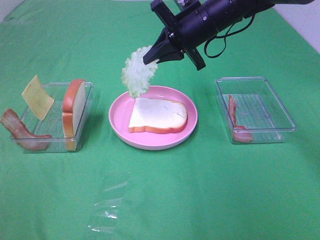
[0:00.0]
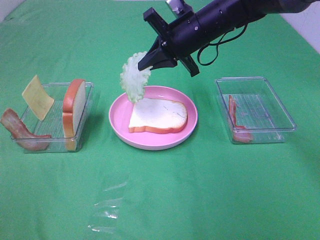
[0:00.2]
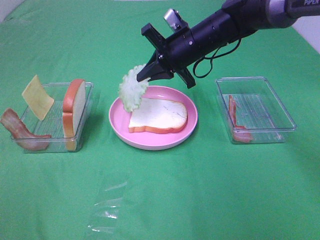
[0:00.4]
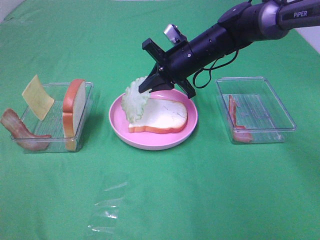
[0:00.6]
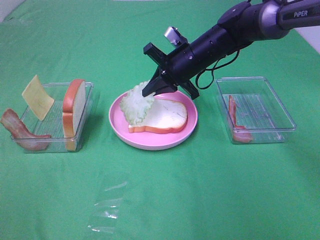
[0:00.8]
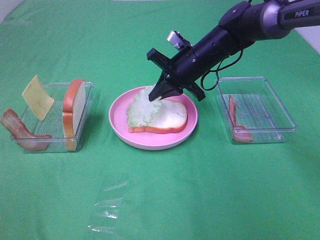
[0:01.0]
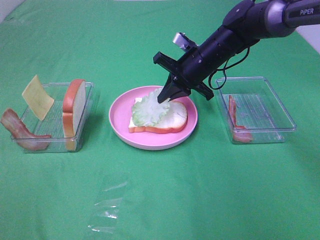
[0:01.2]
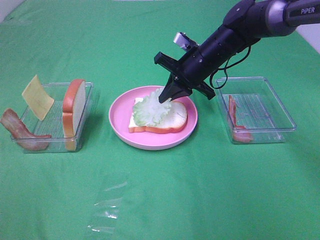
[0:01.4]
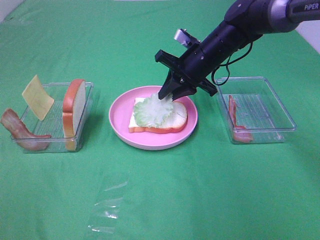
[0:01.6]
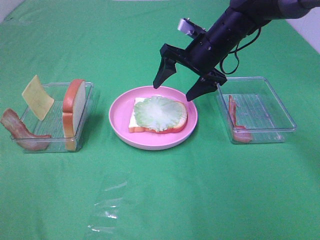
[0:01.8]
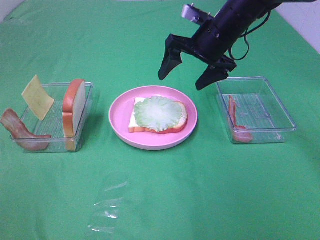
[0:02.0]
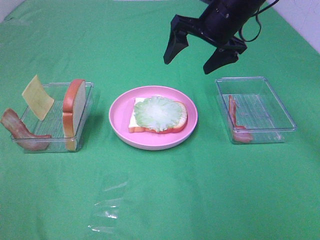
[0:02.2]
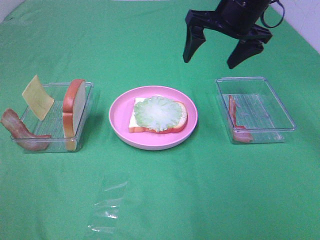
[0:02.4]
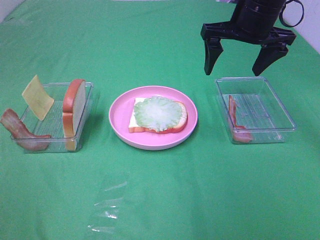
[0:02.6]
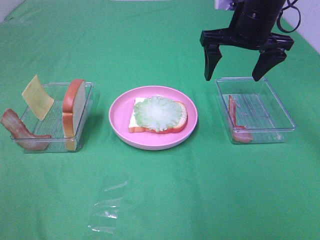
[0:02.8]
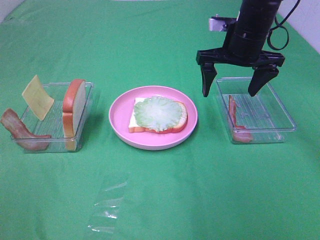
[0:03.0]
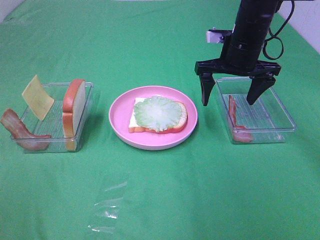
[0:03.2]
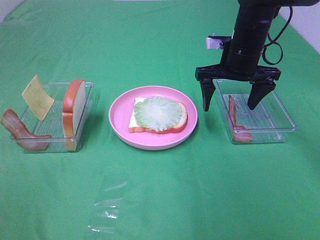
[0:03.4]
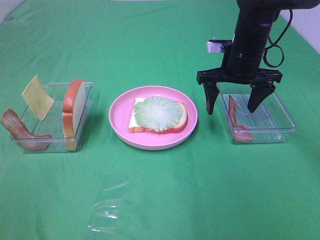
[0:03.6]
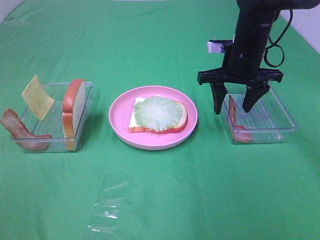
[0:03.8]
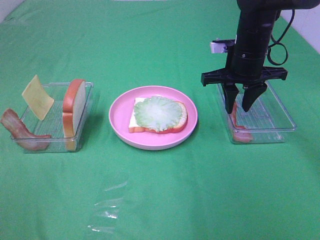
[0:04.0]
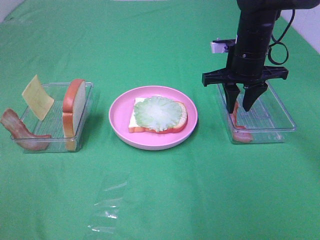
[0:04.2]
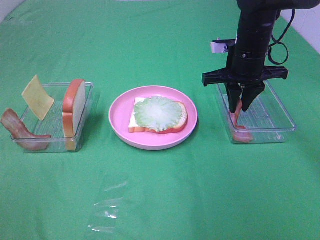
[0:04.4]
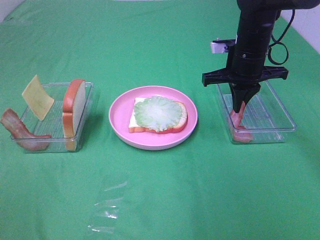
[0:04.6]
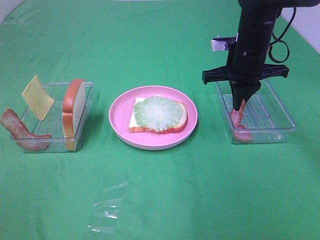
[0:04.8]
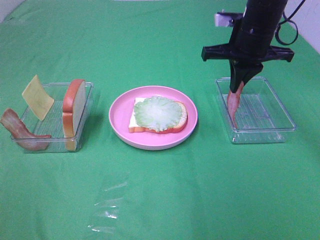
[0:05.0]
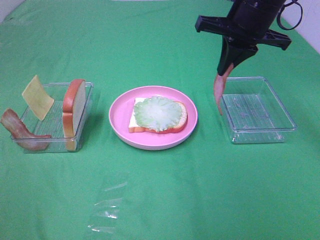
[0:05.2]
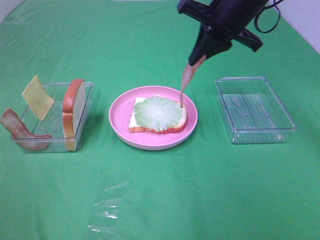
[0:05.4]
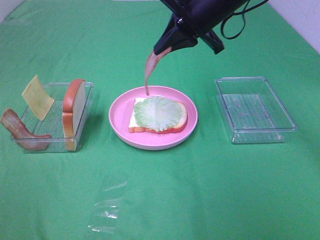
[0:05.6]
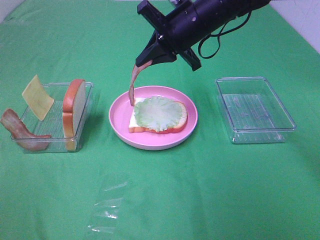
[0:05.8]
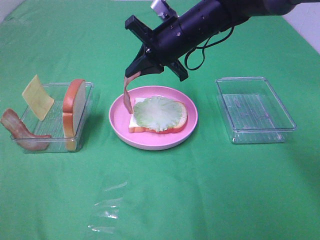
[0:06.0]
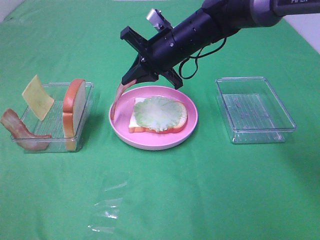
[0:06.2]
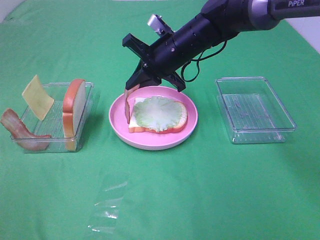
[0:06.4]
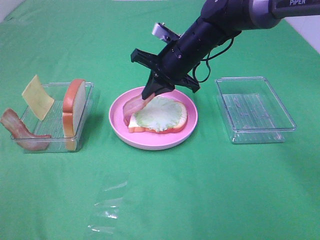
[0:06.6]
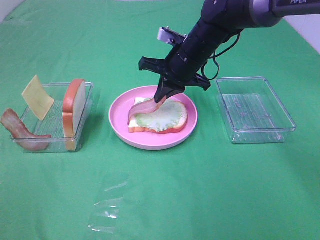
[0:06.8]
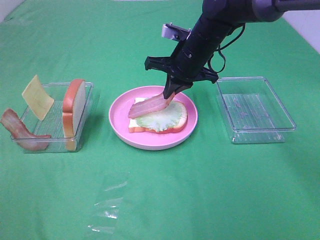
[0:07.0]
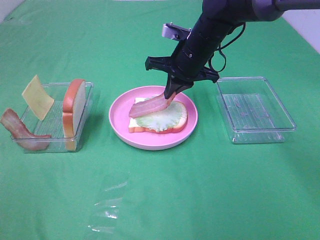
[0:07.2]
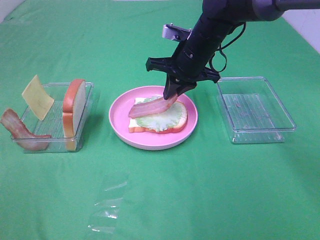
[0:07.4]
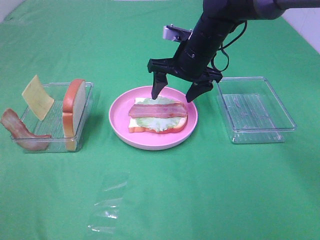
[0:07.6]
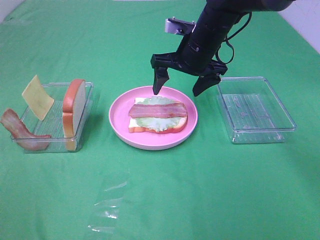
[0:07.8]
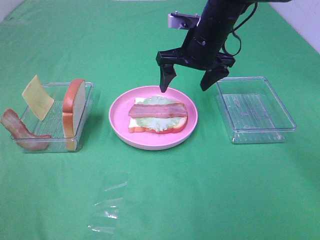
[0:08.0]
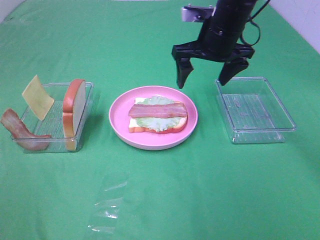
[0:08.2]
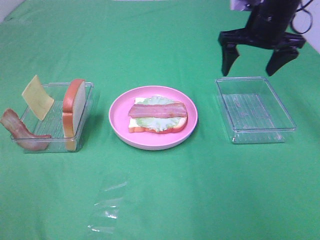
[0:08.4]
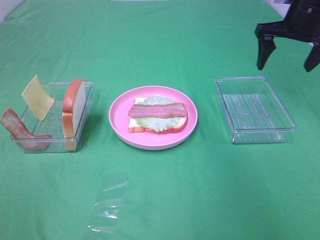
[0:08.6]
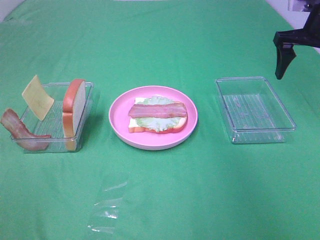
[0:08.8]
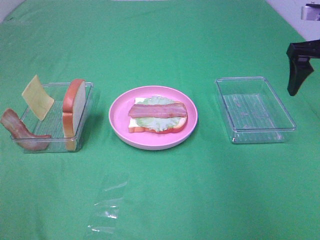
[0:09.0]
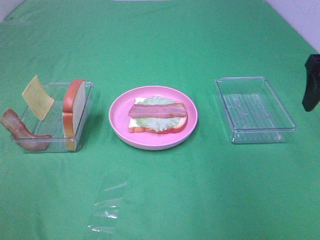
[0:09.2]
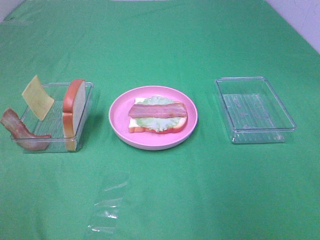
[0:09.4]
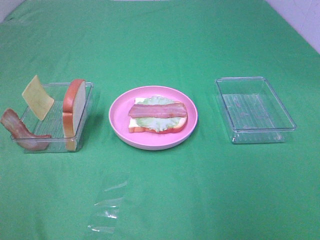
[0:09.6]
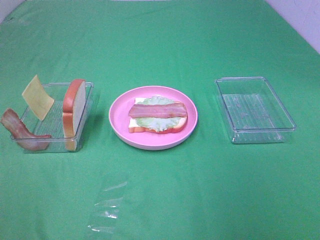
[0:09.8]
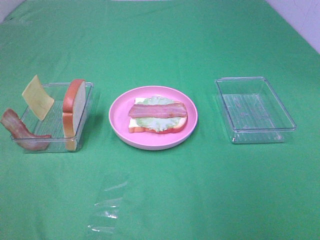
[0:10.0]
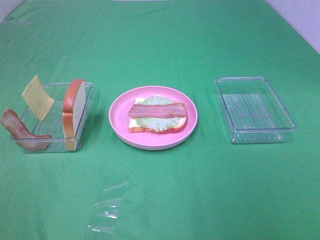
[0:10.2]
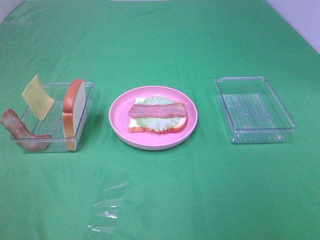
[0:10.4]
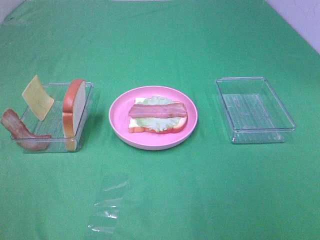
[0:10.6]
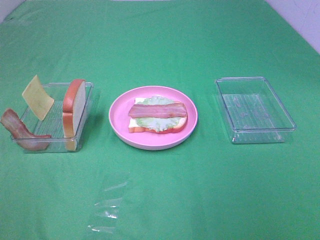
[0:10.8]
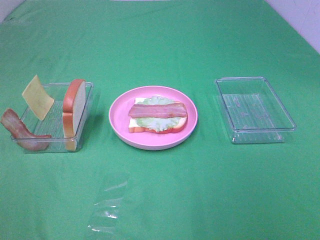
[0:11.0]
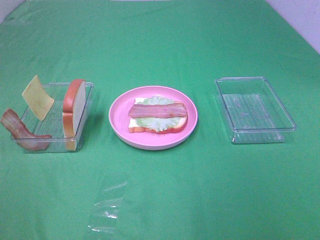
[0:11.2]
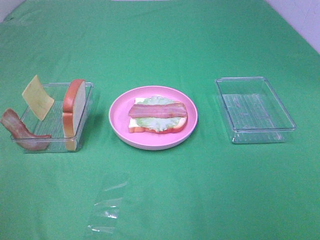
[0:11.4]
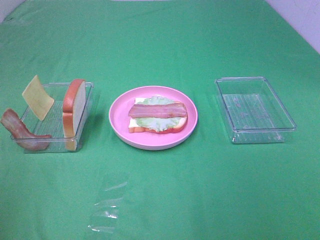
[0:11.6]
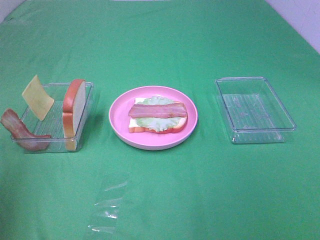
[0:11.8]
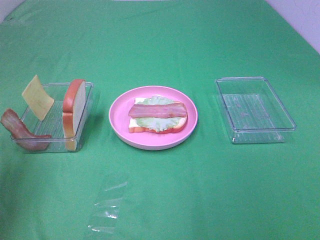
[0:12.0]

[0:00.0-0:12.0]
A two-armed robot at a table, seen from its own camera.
Task of the whole recording: Make sandwiches.
Step, 0:00.0 to 0:01.6: Right hand:place the lettuce slice on the bread slice.
Step, 0:01.8 to 0:04.6: Right hand:grab the bacon.
Step, 0:04.8 to 0:07.6: Right hand:place bacon on lettuce slice.
0:00.0 to 0:01.6: The right gripper travels downward by approximately 5 cm.
0:01.6 to 0:03.0: The right gripper goes approximately 10 cm upward and to the right, and opens.
0:03.0 to 0:04.4: The right gripper closes.
0:04.4 to 0:06.0: The right gripper goes approximately 10 cm to the left.
0:06.0 to 0:07.6: The right gripper opens up.
0:07.6 to 0:09.0: The right gripper shifts about 25 cm to the right and upward.
0:09.0 to 0:10.4: The right gripper shifts about 35 cm backward.
0:10.4 to 0:12.0: The left gripper moves forward, some 20 cm.

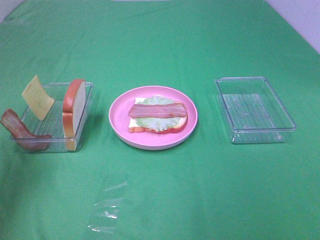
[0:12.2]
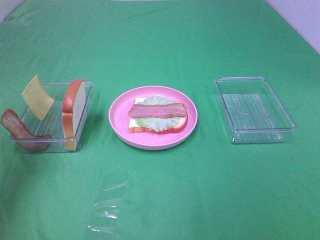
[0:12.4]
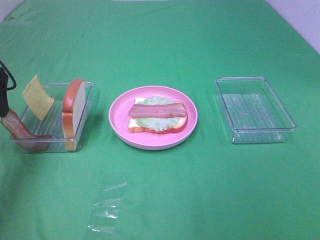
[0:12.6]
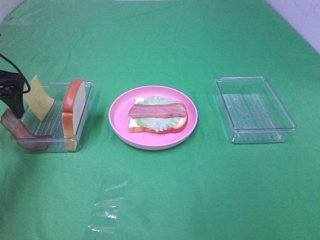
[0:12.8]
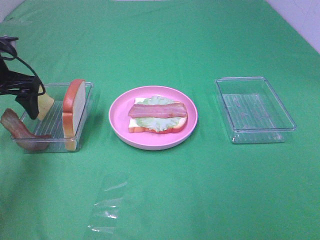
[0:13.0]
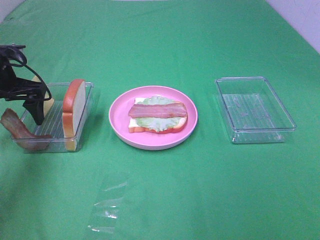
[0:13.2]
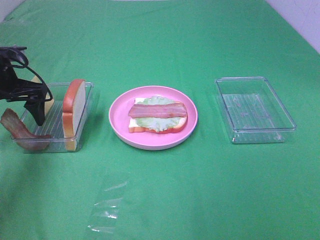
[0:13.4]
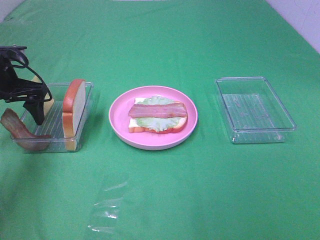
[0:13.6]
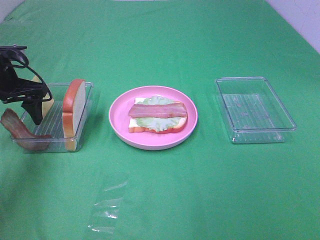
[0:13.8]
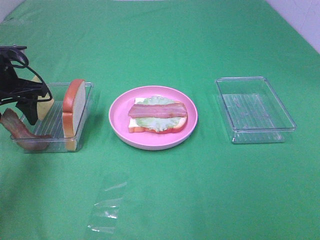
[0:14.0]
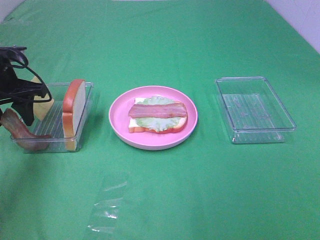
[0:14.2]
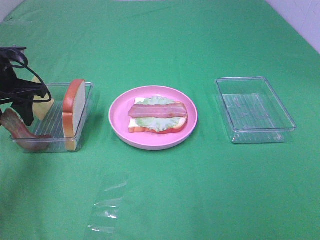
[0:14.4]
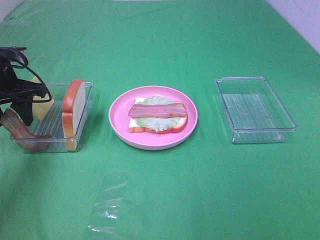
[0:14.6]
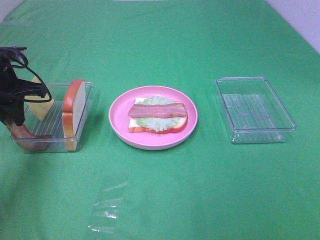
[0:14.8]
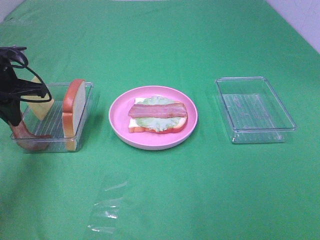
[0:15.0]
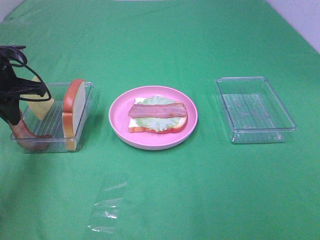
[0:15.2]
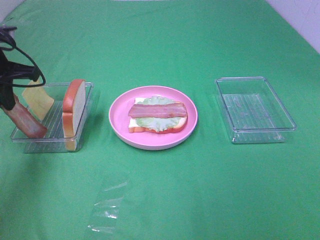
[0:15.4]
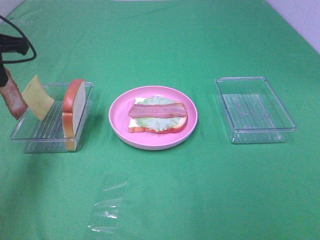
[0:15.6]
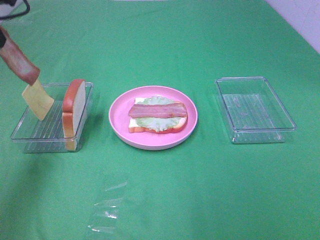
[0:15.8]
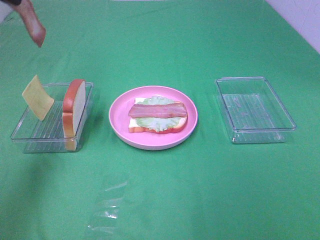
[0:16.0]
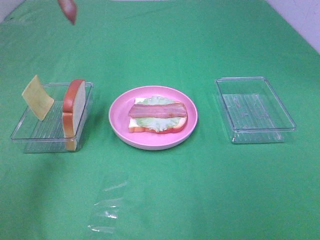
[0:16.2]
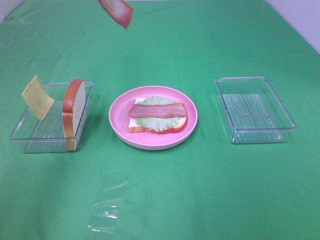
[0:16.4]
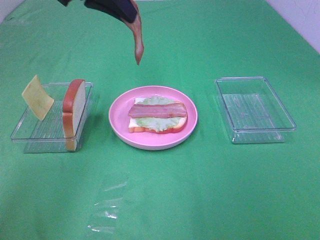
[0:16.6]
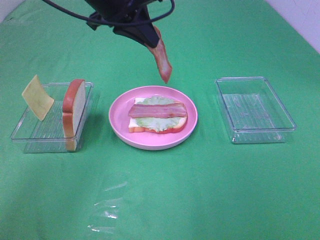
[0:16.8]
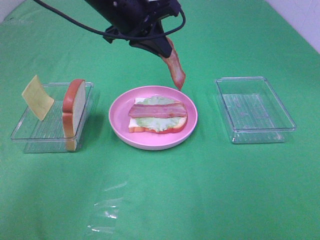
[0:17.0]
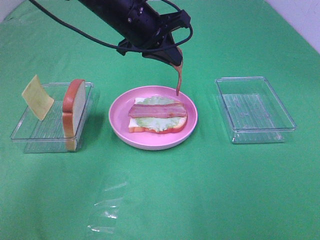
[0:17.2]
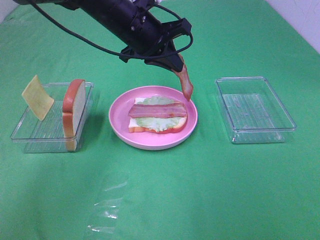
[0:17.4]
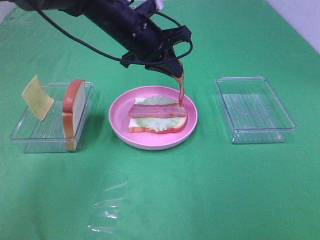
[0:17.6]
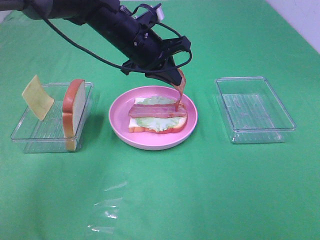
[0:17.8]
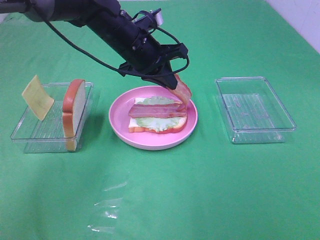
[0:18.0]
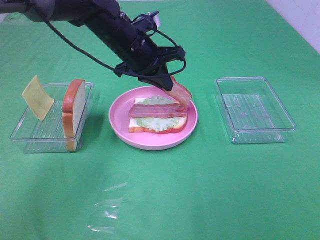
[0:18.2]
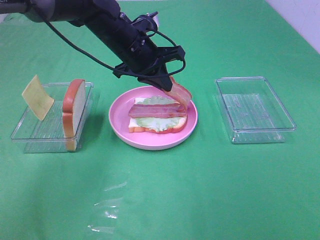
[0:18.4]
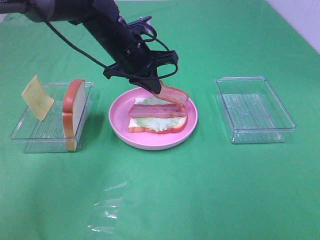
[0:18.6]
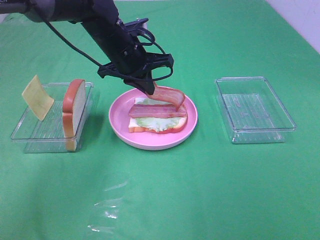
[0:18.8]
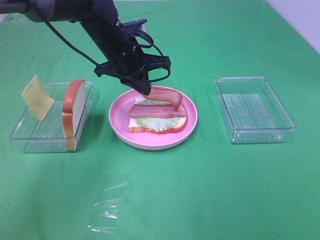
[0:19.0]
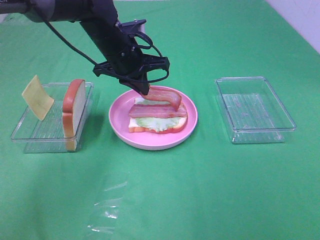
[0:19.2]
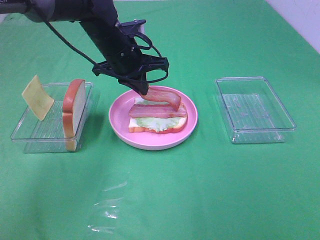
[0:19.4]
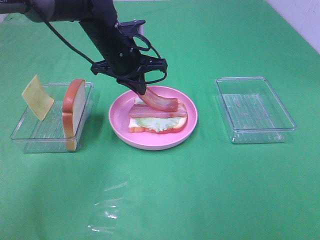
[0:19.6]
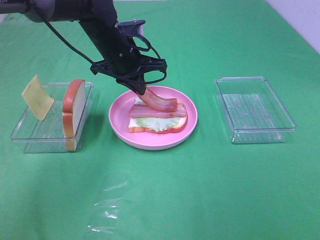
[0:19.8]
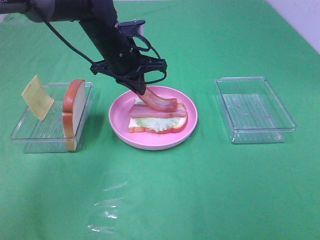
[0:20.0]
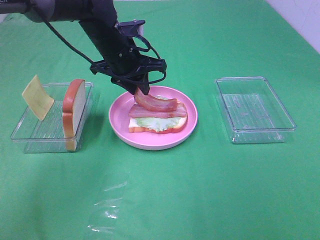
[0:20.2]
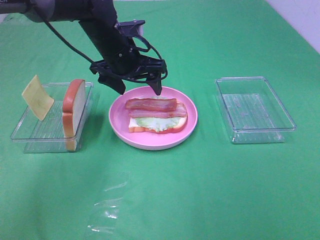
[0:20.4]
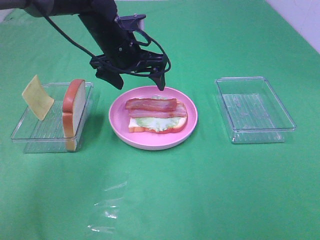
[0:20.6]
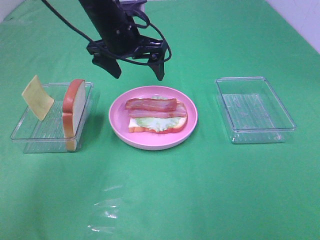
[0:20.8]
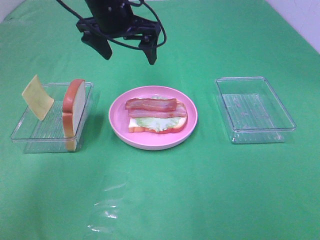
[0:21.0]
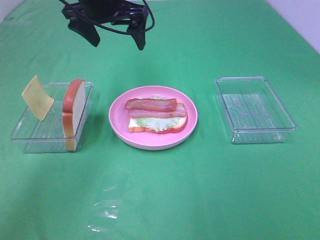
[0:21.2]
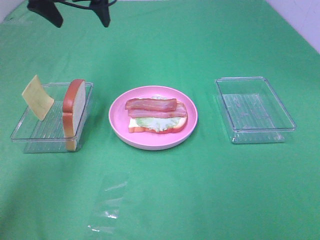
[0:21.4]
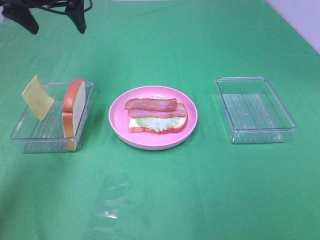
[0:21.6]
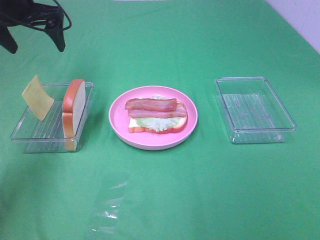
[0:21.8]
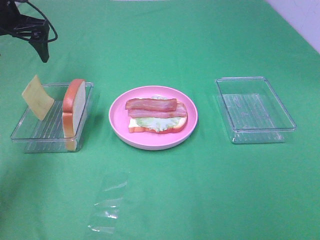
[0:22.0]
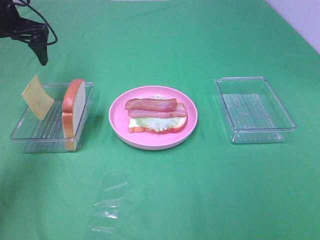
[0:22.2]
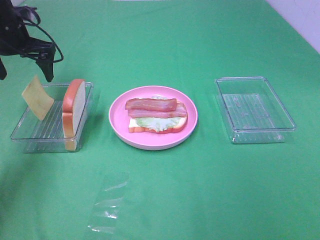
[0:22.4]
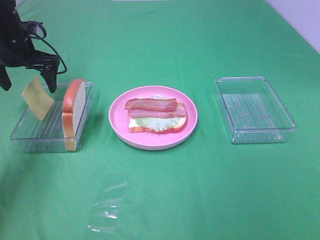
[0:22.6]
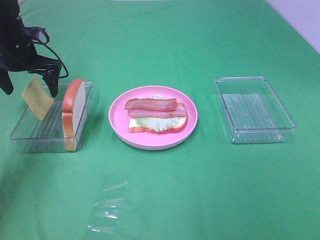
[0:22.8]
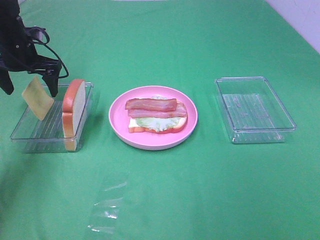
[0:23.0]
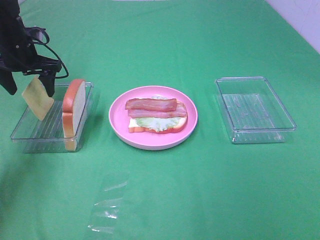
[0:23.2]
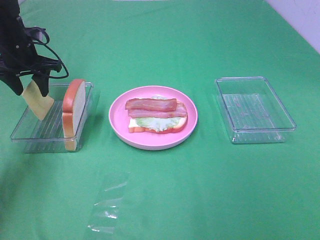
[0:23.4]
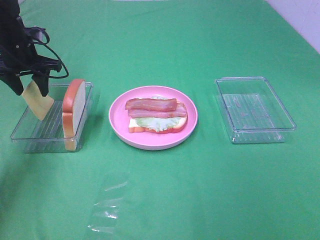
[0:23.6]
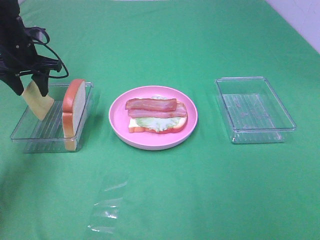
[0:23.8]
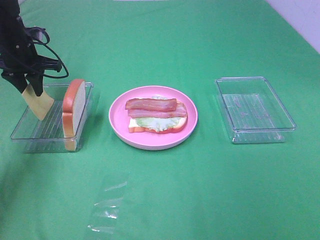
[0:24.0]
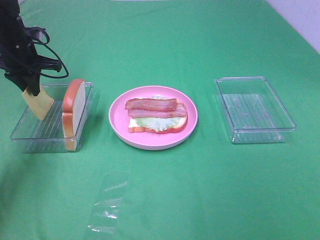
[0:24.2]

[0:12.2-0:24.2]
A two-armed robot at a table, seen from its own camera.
Task of the whole recording: Make sandwiches.
Step, 0:12.2 to 0:15.0: Left hand:grab the bacon.
Step, 0:15.2 to 0:20.4: Left hand:place bacon on bacon.
0:12.2 to 0:13.8: The left gripper goes approximately 15 cm downward and forward.
0:13.8 to 0:15.2: The left gripper closes its fingers.
0:15.2 to 0:16.6: The left gripper shifts about 25 cm to the right and upward.
0:16.6 to 0:18.2: The left gripper moves downward and to the right, some 15 cm.
0:18.2 to 0:19.8: The grippers make only small movements.
0:19.8 to 0:21.2: The left gripper moves upward, approximately 10 cm, and opens its fingers.
0:21.2 to 0:22.6: The left gripper heads to the left and downward, covering roughly 20 cm.
0:22.6 to 0:24.2: The left gripper closes.
